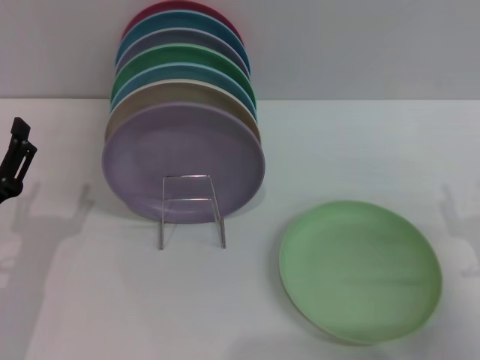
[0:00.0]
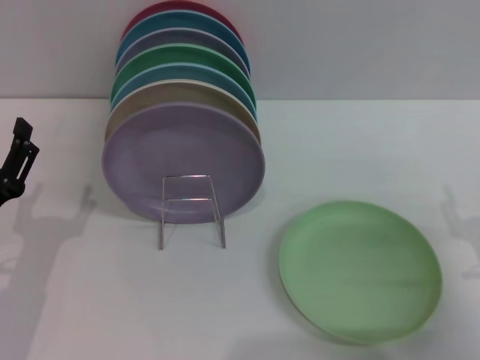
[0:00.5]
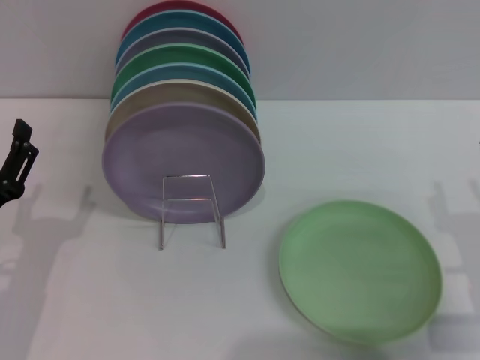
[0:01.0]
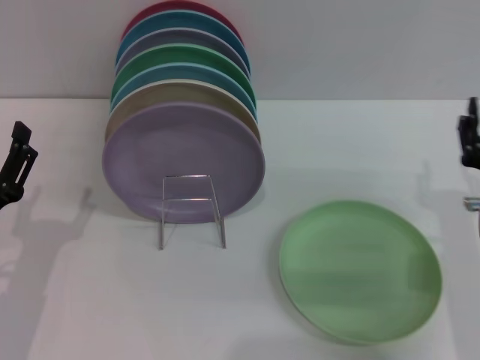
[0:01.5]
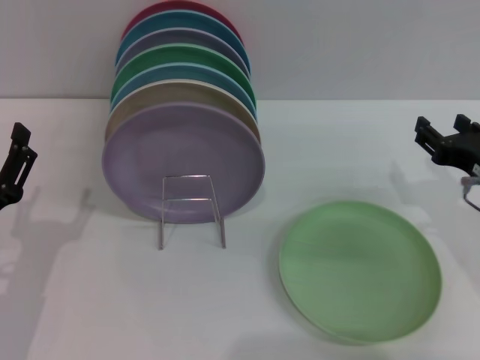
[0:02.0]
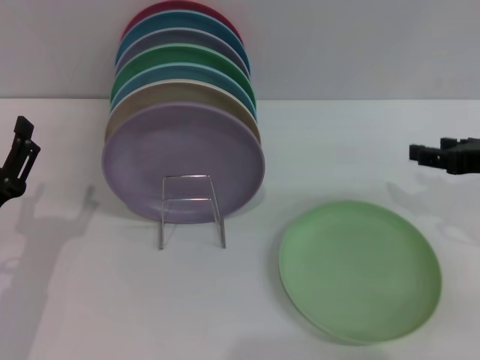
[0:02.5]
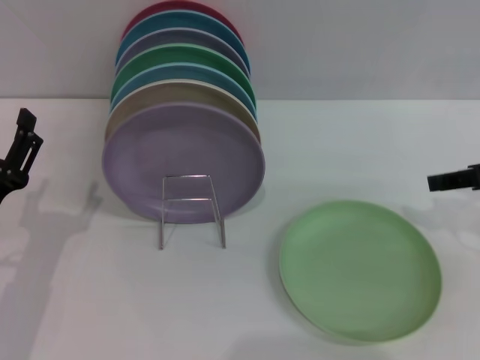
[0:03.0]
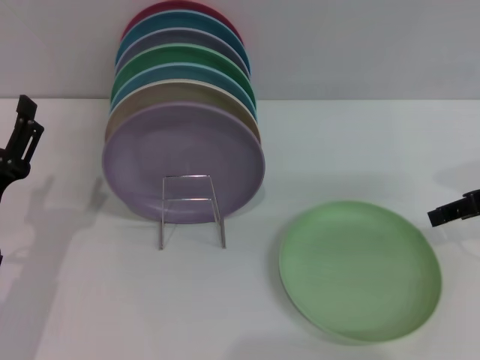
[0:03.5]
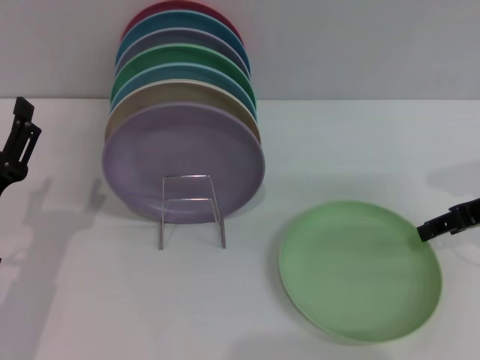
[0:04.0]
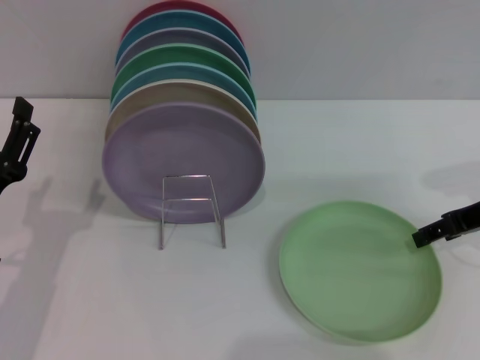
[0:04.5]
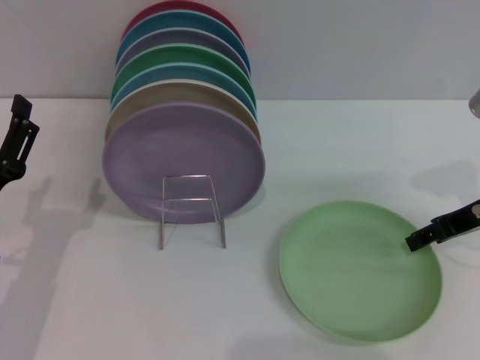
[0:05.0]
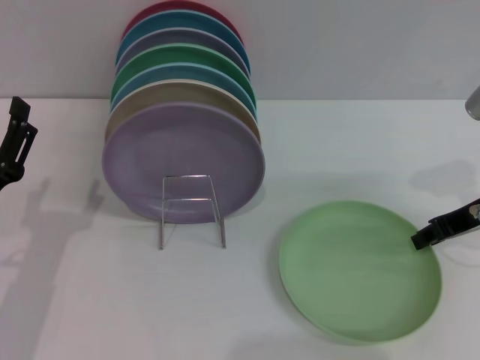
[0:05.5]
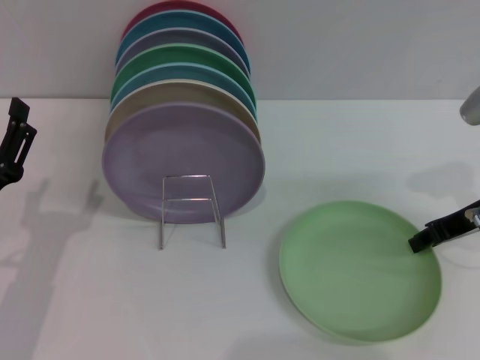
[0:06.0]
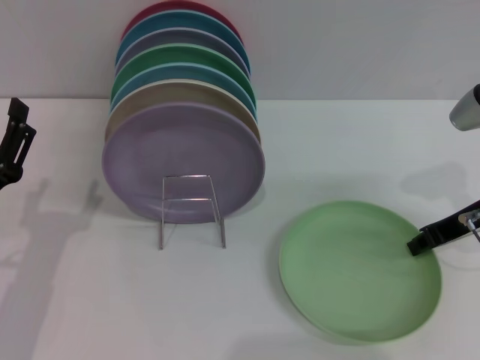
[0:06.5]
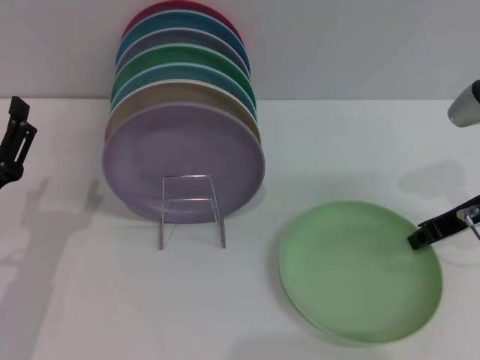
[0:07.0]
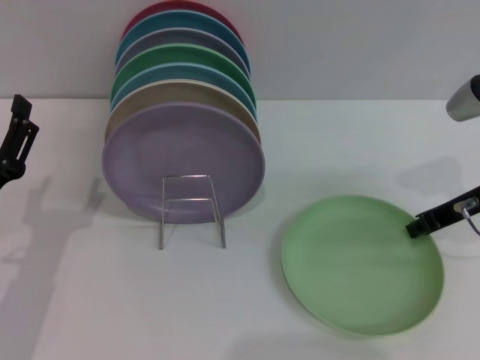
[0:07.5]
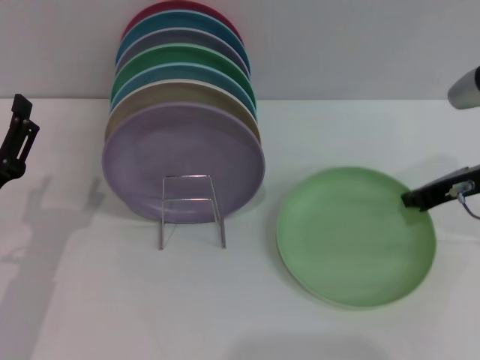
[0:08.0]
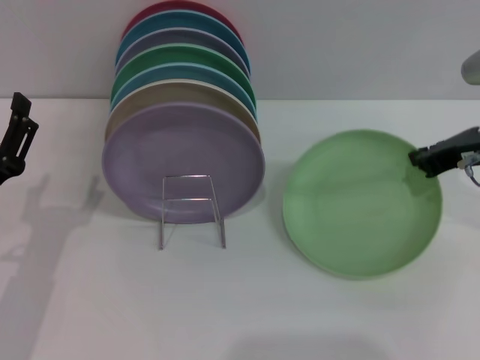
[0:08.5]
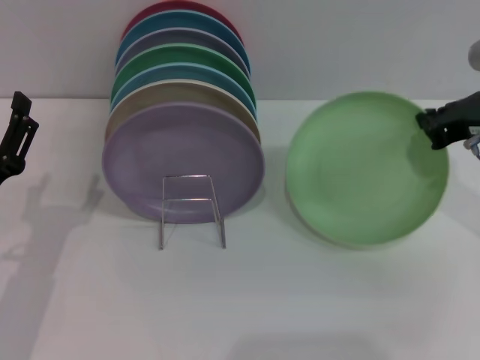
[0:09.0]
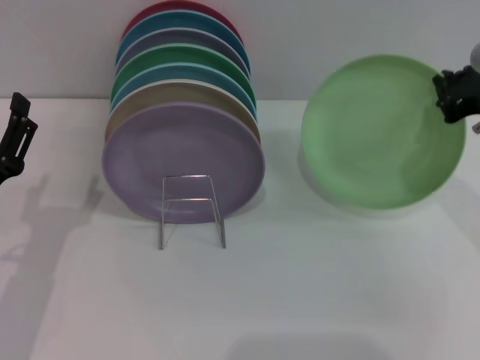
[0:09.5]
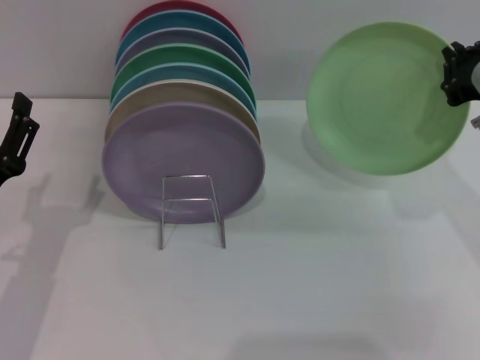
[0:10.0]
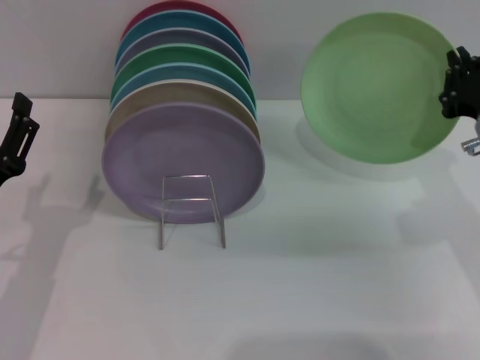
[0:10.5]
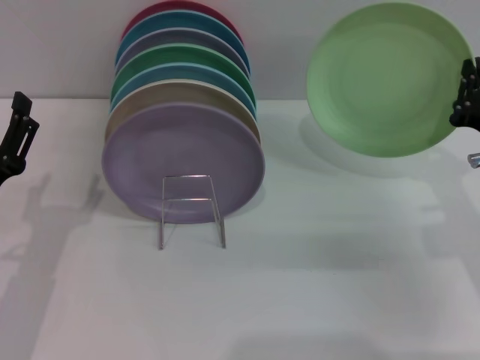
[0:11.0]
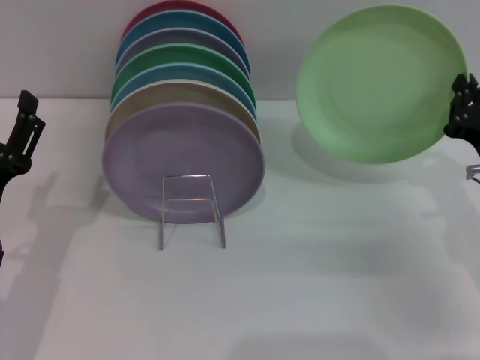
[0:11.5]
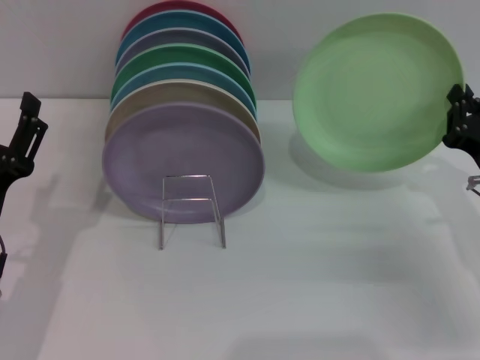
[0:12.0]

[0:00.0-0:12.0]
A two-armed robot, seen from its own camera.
Task of the whole recording: Grip the plate with one hand, pass it to the other, then set it on the shelf.
Step, 0:00.0 to 0:10.0: Pick up the plate with the right gripper.
0:00.0 to 0:02.0: The right gripper travels upward and forward by about 10 cm.
0:02.0 to 0:04.0: The right gripper shifts by about 10 cm.
0:04.0 to 0:06.0: The right gripper closes.
0:06.0 to 0:08.0: The right gripper closes up.
0:08.0 to 0:10.0: The right gripper changes place by about 5 cm.
0:10.0 to 0:12.0: The right gripper travels downward by approximately 10 cm.

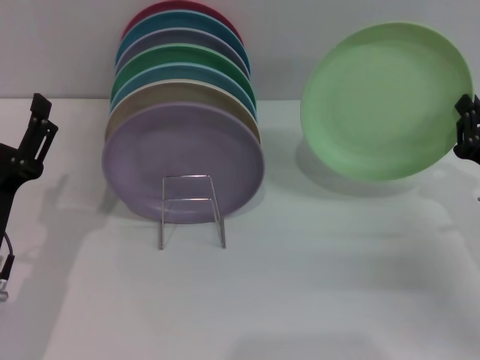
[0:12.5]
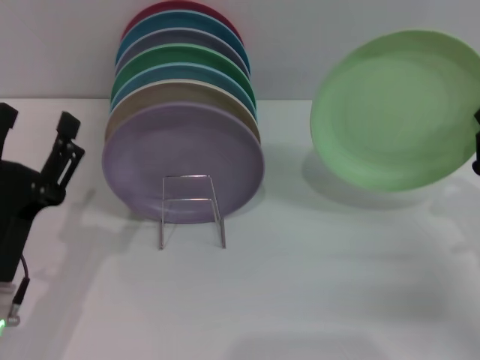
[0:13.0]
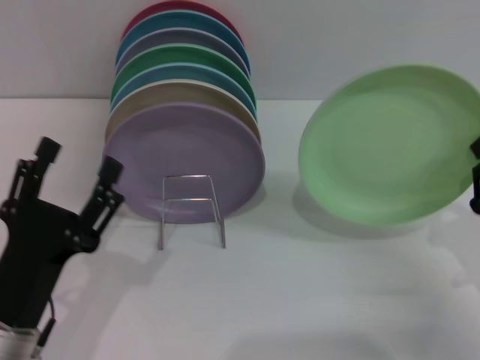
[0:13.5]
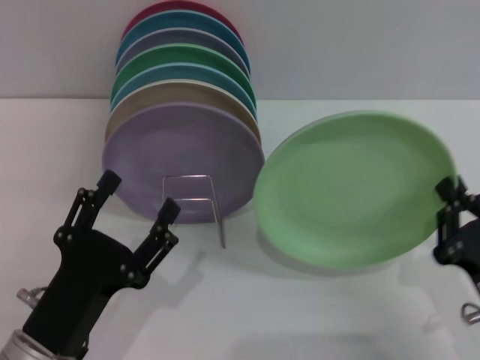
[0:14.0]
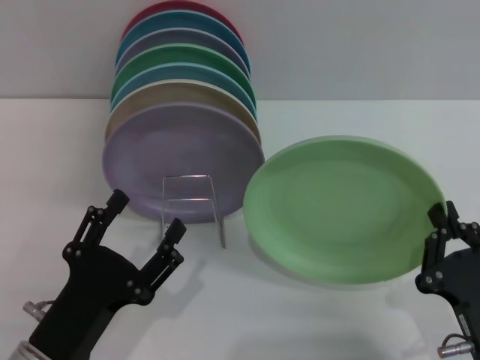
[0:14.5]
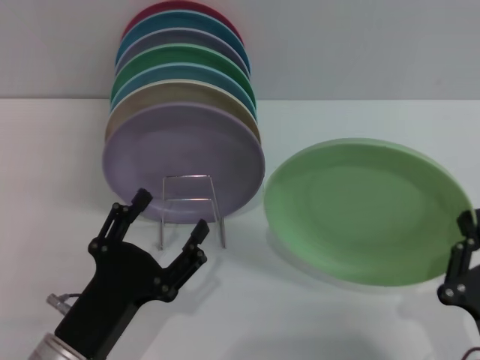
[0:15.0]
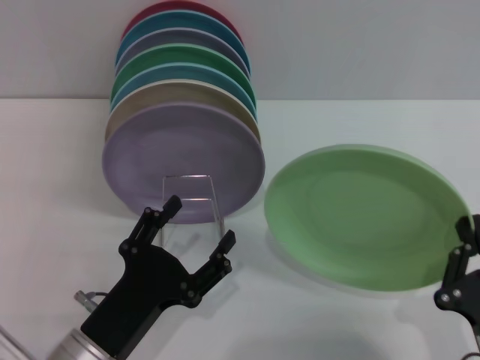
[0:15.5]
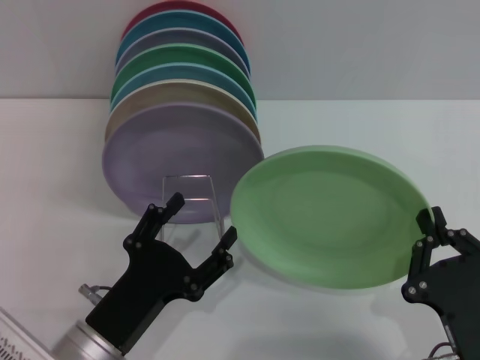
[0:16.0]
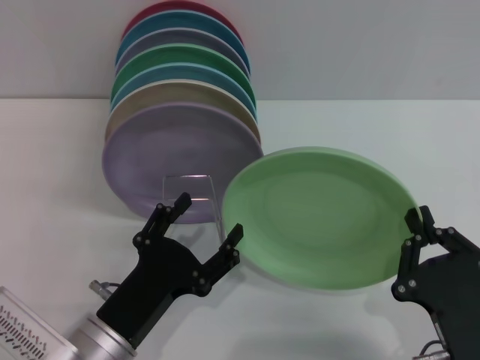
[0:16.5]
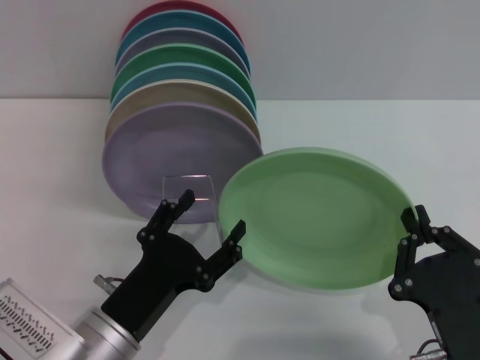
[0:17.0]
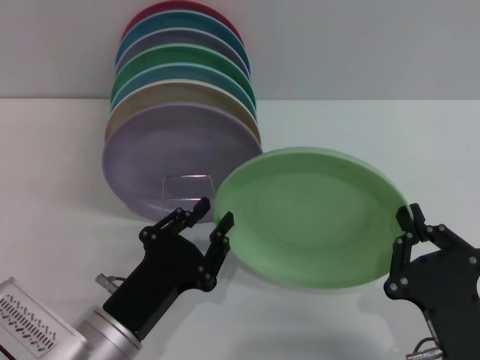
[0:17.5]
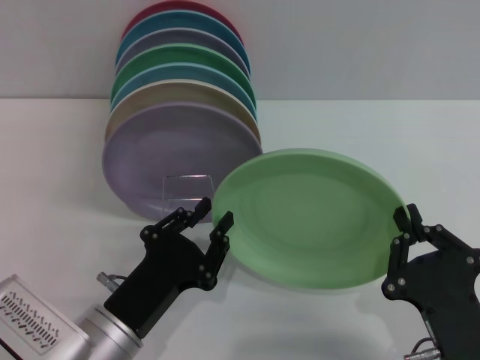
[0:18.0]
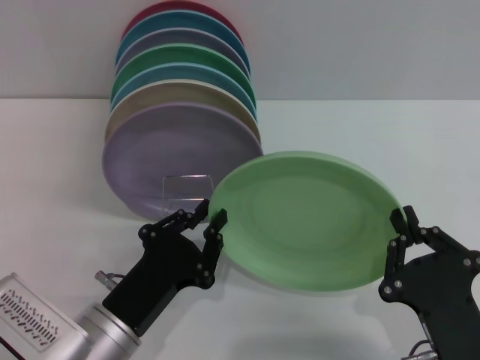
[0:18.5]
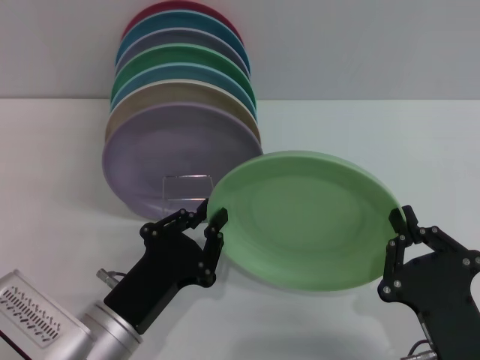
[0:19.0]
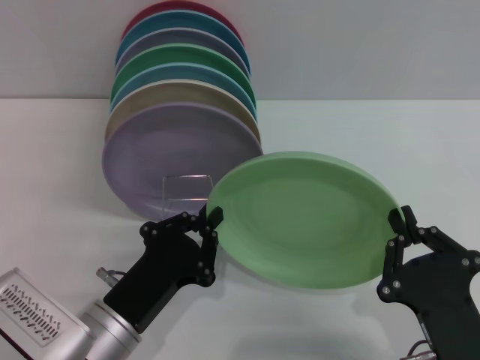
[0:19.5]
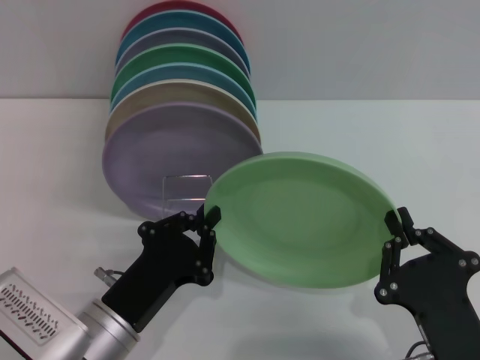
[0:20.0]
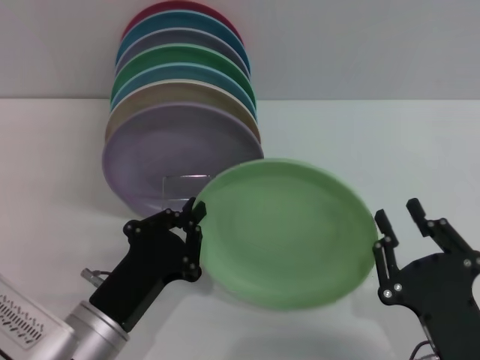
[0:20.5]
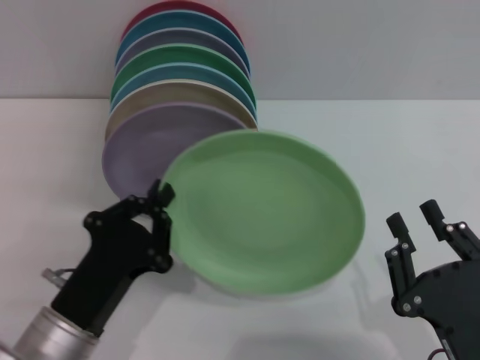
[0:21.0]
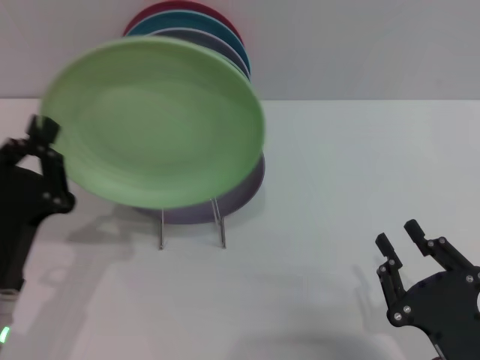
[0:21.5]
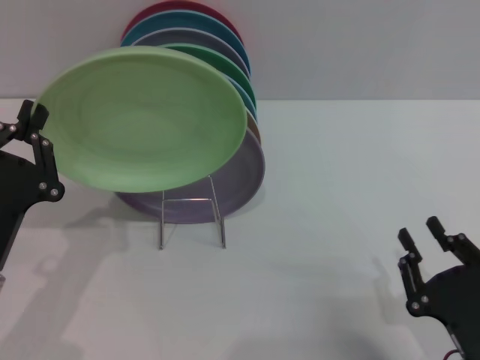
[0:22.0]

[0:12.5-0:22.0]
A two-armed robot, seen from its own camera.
Task of the whole recording: Grip the plate with one hand, pass it to the other, then set it on the shelf.
Step, 0:12.5 to 0:20.5: Pass the plate from the right gripper to the left gripper.
0:12.5 to 0:14.5: The left gripper heads backward and to the right, covering some 10 cm. The right gripper goes about 20 cm backward and to the left.
0:14.5 to 0:16.5: The grippers make only small movements.
0:16.5 to 0:18.0: The left gripper closes.
0:18.0 to 0:20.0: The two grippers keep their place.
0:20.0 to 0:22.0: The left gripper travels to the left by about 10 cm, while the right gripper opens.

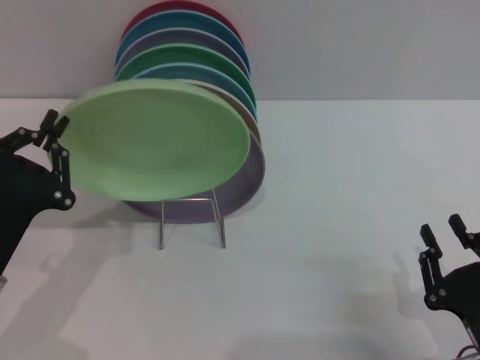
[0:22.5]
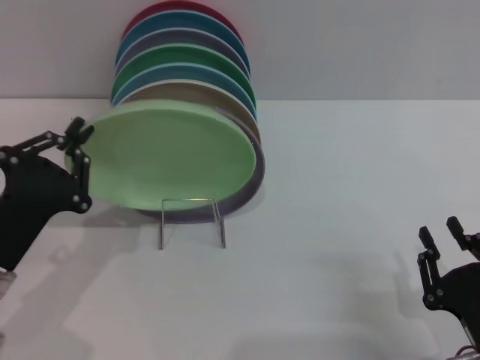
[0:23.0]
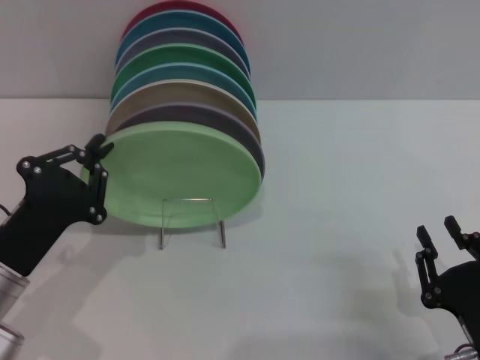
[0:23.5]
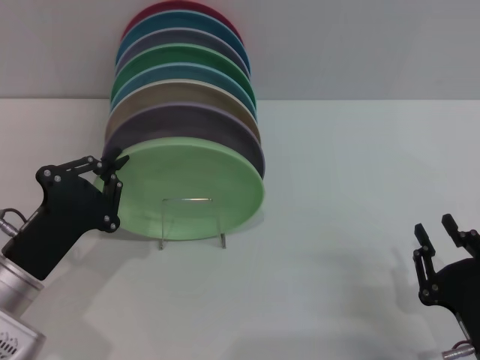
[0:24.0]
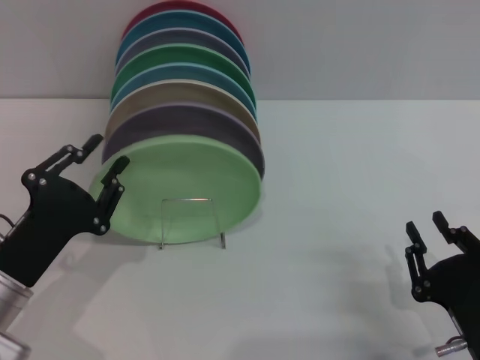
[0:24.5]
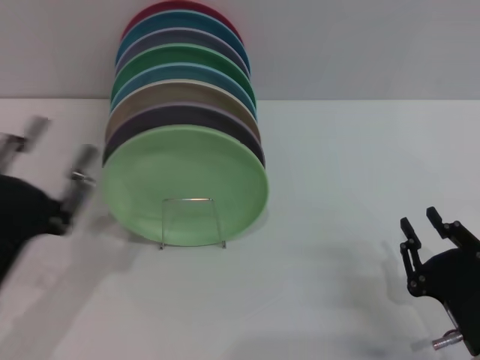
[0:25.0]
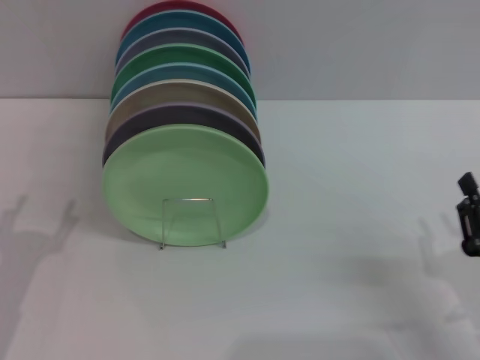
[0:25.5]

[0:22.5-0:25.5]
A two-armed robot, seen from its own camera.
Task of the whole recording: Grip the plate with one hand, pass it to the other, then set it on the shelf.
Step, 0:22.5 to 0:24.5: Place the plate on the shelf with the left gripper.
0:22.5 to 0:24.0: There are only small adjustments of the grippers.
0:24.0 to 0:25.5: The left gripper heads to the left, covering some 5 cm, and opens its fingers. The right gripper moves approximately 5 cm.

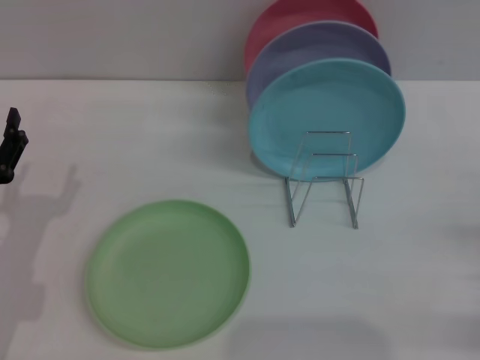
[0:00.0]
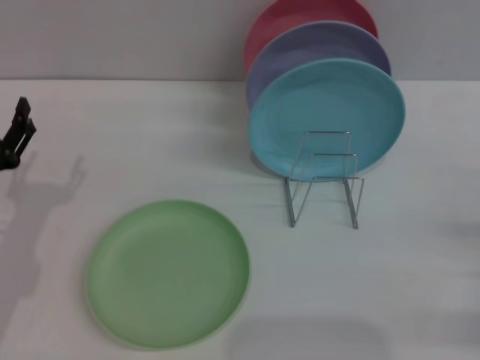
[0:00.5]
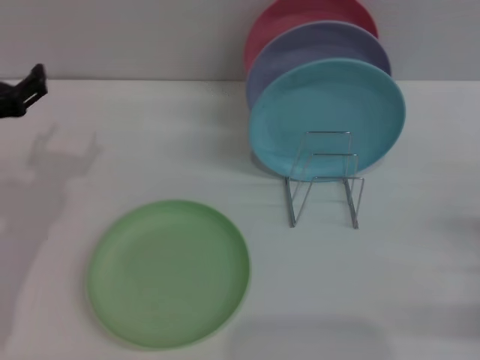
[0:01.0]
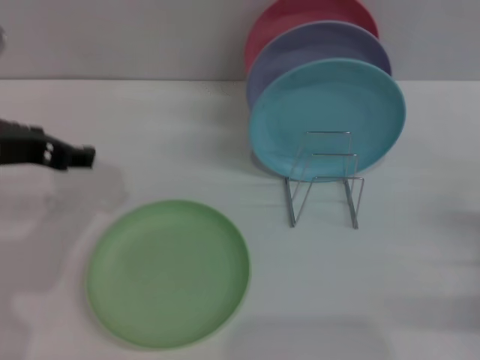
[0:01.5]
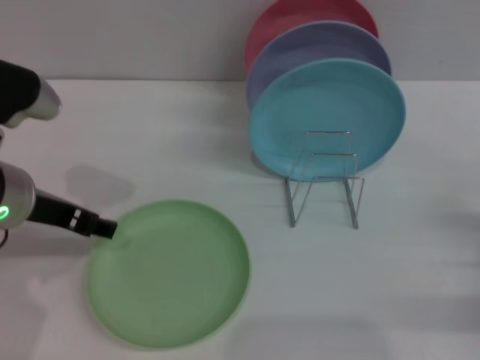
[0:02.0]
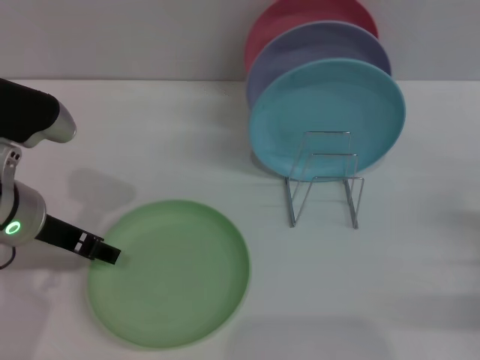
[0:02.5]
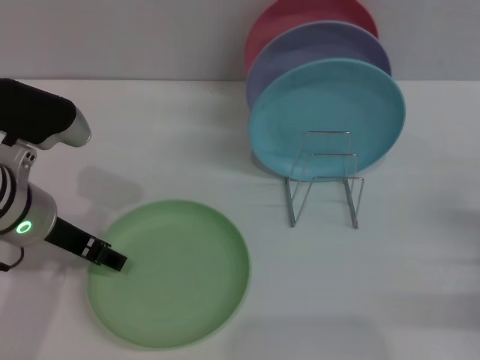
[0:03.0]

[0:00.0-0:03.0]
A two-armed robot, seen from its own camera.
Task of the whole recording: Grip the plate with one hand, pass it to the other, then set it on the shelf.
0:00.0 to 0:01.5: The left gripper travels upward by about 15 cm.
0:01.5 to 0:03.0: The left gripper is displaced downward by roughly 5 cm.
